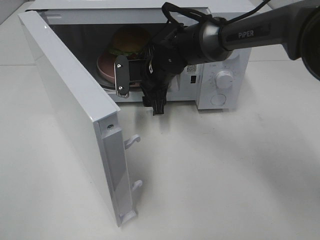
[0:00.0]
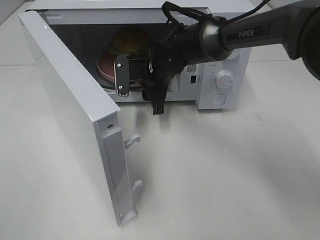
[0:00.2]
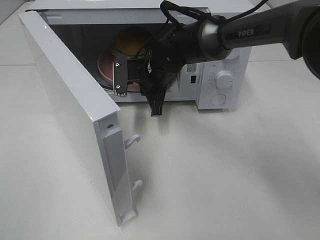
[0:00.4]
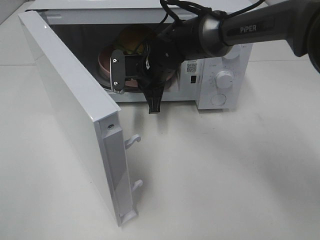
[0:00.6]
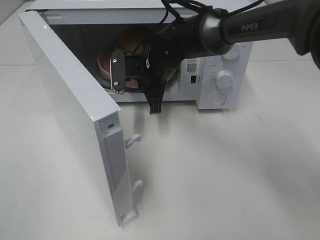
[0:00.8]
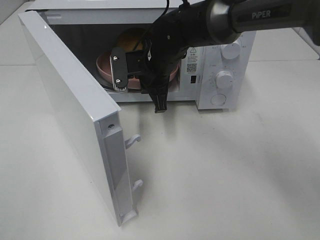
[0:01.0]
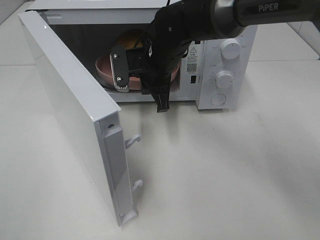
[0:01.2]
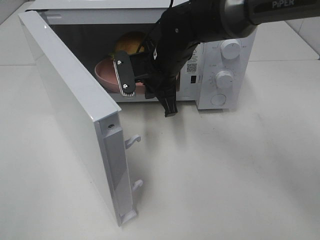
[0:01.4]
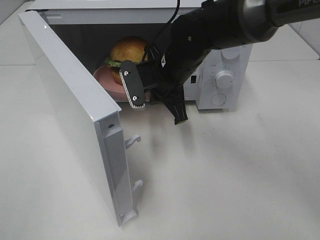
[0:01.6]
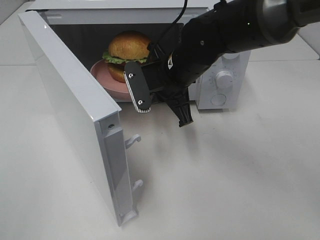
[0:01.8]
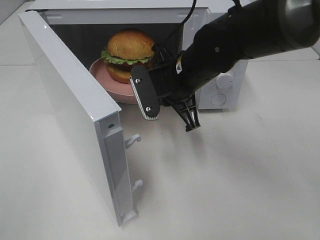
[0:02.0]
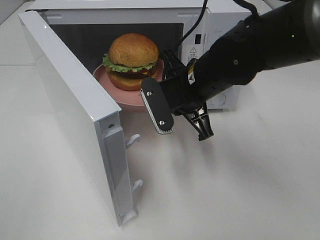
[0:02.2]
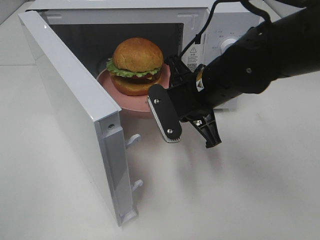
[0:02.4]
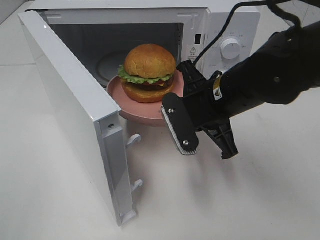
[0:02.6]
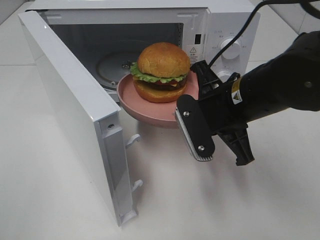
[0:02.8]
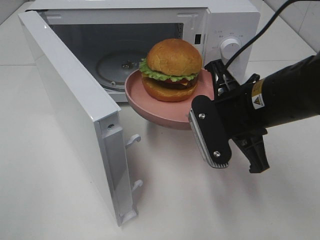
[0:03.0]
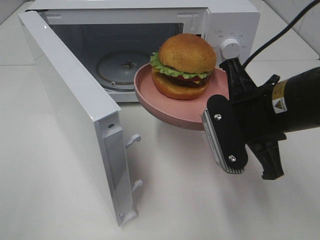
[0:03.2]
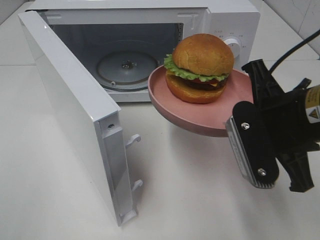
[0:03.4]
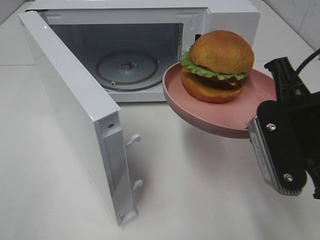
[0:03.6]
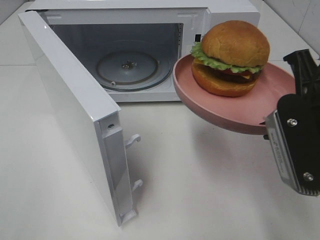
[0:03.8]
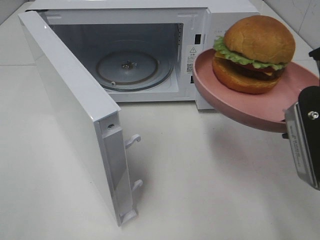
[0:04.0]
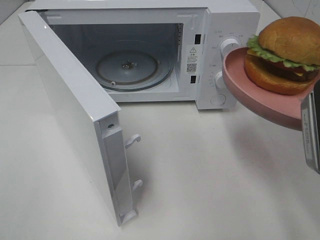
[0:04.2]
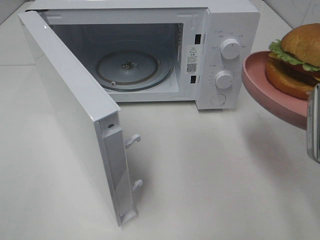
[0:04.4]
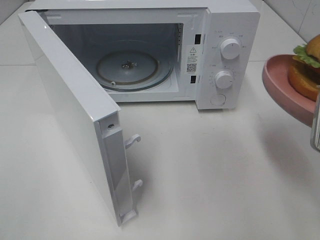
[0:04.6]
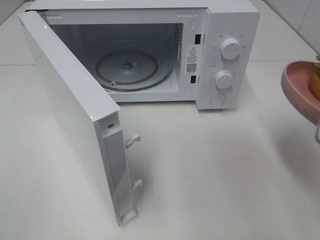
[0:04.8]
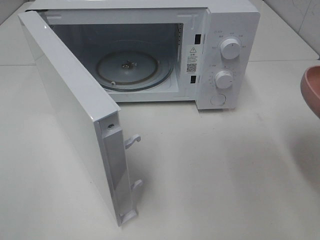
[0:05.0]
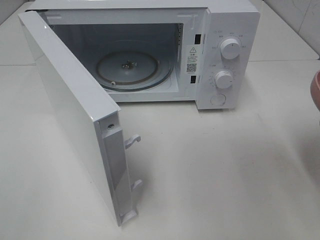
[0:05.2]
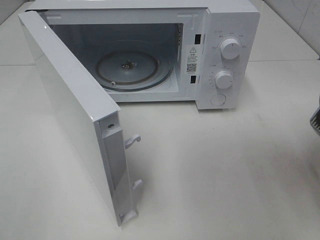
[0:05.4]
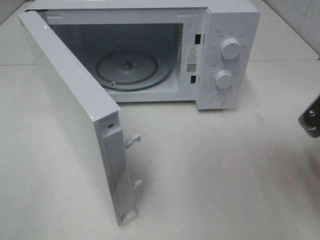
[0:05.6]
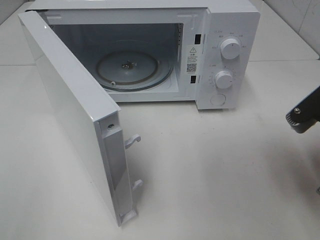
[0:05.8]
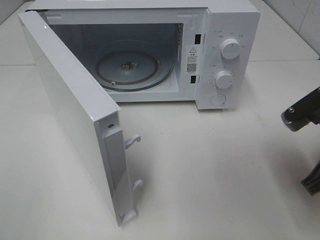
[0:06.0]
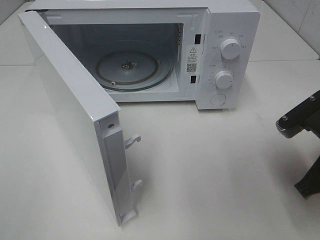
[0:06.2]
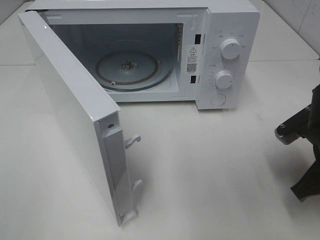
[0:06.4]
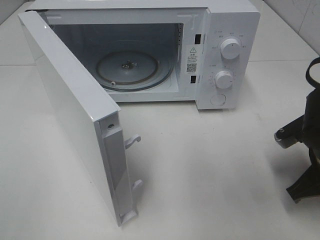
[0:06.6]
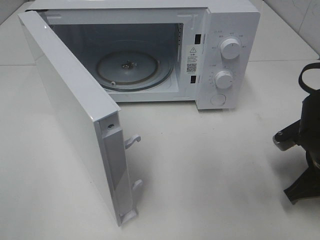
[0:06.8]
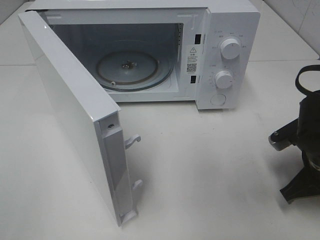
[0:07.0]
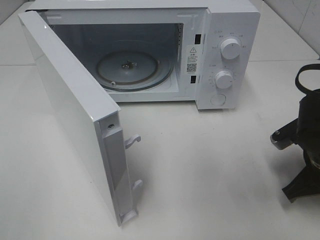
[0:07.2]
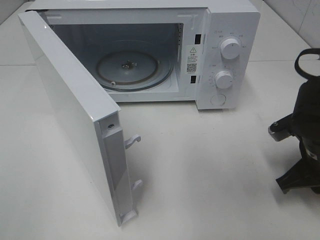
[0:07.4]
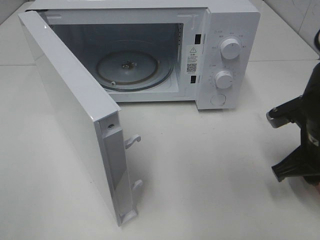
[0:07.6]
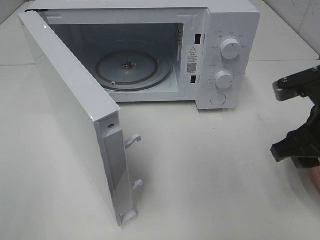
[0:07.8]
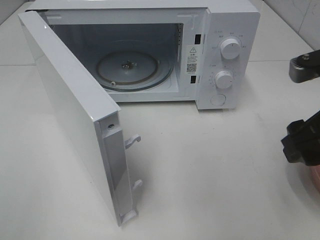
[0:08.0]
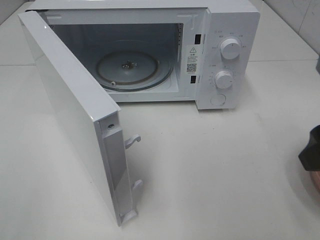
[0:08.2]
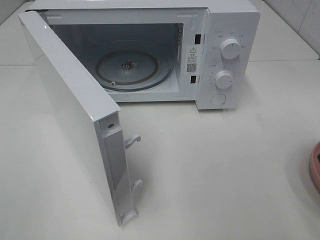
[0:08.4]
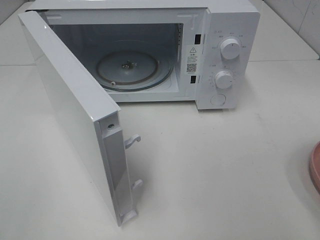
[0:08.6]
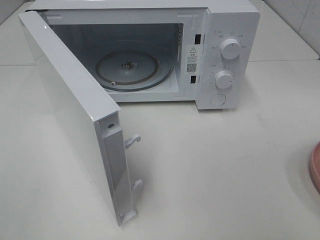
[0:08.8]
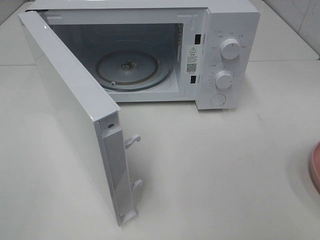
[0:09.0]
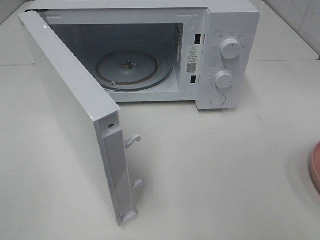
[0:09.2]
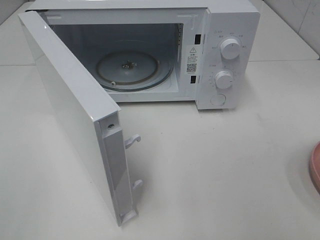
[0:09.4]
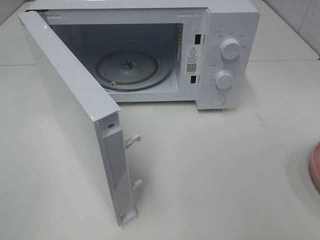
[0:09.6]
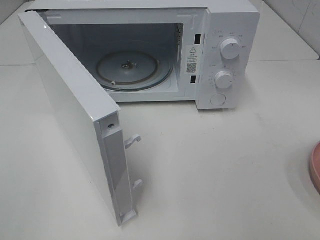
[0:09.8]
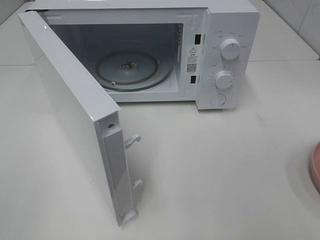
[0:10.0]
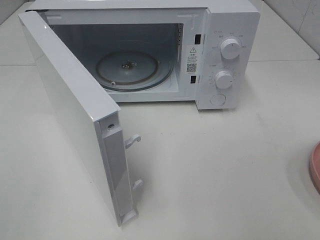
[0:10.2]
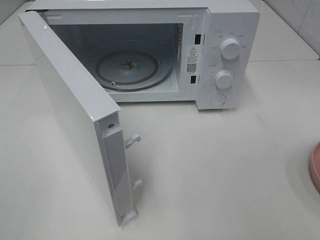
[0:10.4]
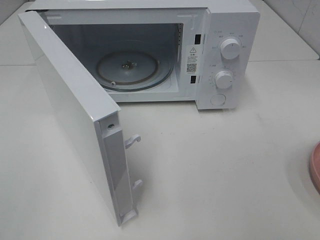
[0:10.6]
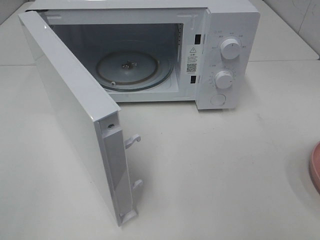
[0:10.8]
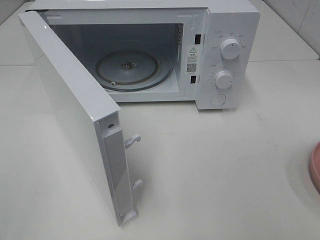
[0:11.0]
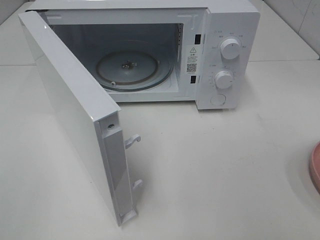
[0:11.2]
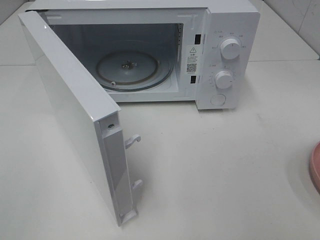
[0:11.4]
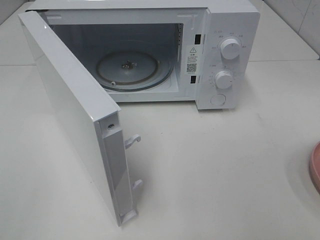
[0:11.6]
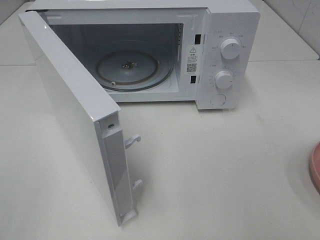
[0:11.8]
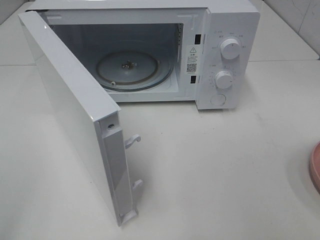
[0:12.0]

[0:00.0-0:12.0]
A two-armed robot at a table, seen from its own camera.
Task of the whole recording: Heat the burger.
Step, 0:00.6 to 0:07.2: Right hand: place the plate on the table.
0:00.0 to 0:01.6: The right gripper moves backward, some 5 cm, and closes.
0:01.6 to 0:03.0: The right gripper goes some 15 cm backward and to the right.
0:03.0 to 0:04.4: The right gripper is displaced to the right, backward and upward by approximately 15 cm.
0:04.4 to 0:06.0: The right gripper travels downward by roughly 5 cm.
0:06.0 to 0:07.6: The right gripper moves roughly 5 cm, and opens.
0:07.6 to 0:09.0: The right gripper travels backward and upward by approximately 20 cm.

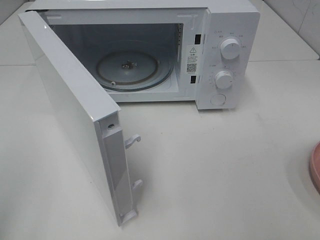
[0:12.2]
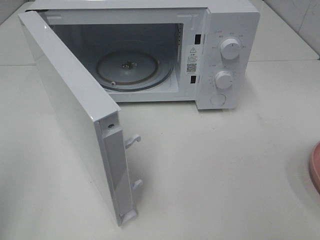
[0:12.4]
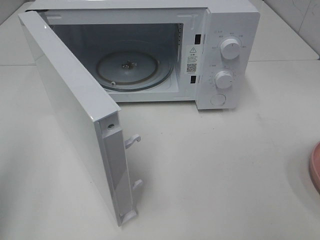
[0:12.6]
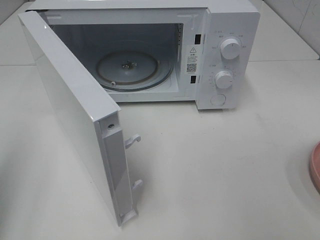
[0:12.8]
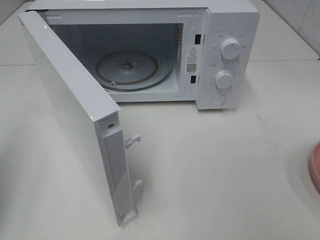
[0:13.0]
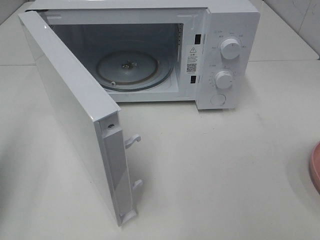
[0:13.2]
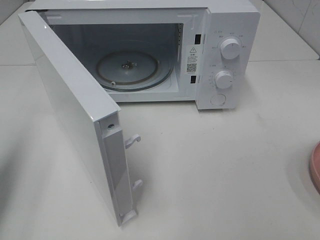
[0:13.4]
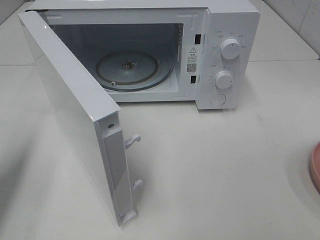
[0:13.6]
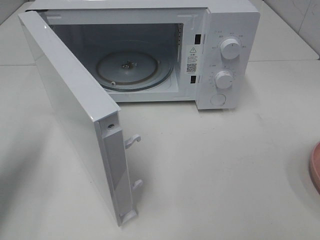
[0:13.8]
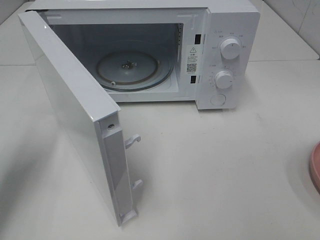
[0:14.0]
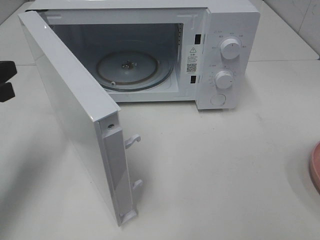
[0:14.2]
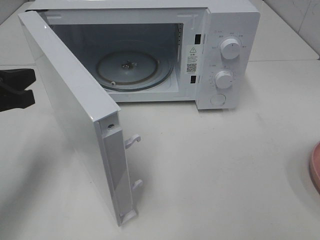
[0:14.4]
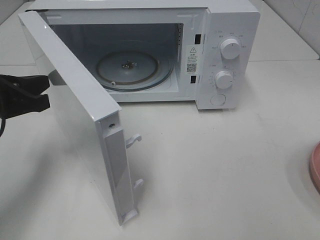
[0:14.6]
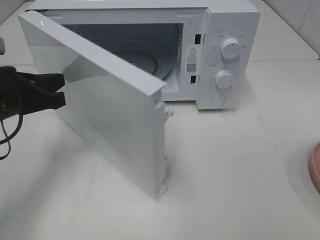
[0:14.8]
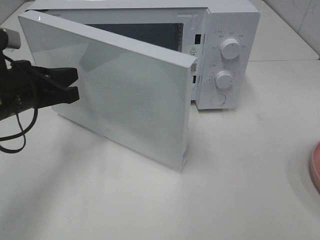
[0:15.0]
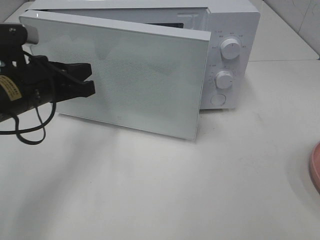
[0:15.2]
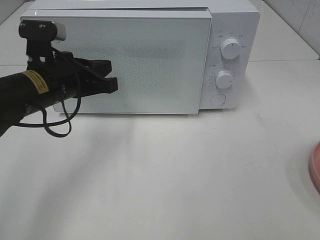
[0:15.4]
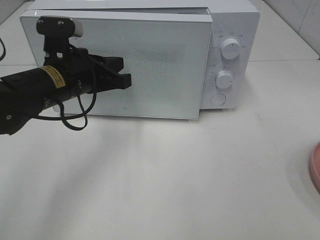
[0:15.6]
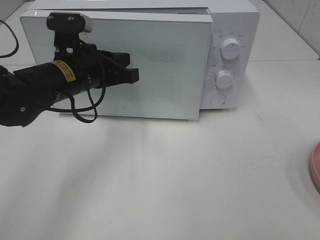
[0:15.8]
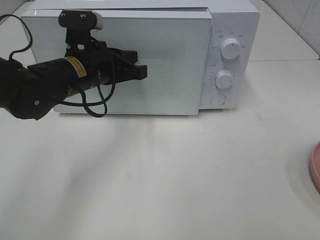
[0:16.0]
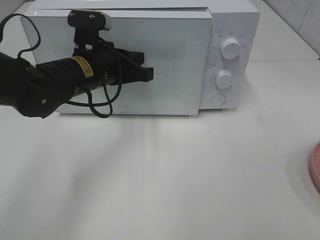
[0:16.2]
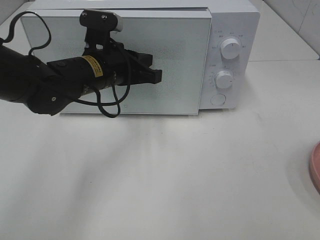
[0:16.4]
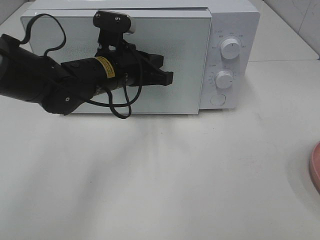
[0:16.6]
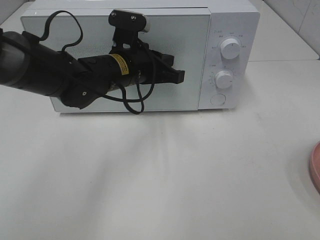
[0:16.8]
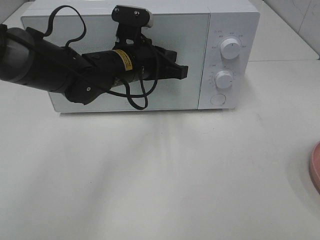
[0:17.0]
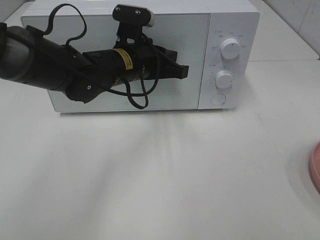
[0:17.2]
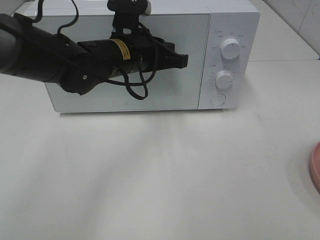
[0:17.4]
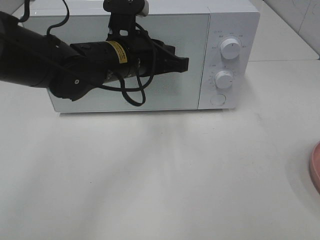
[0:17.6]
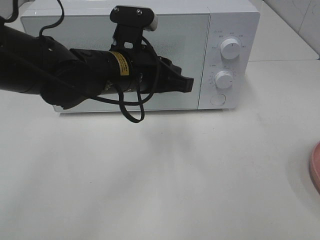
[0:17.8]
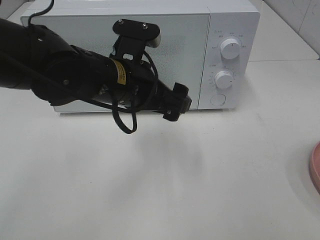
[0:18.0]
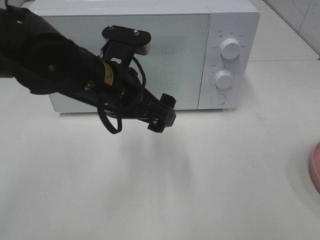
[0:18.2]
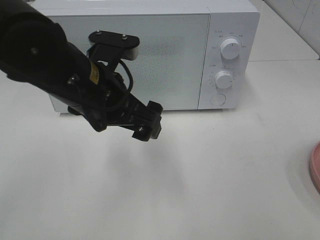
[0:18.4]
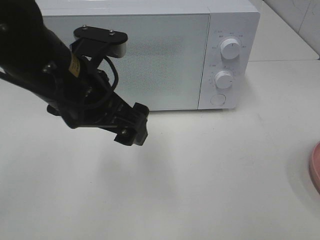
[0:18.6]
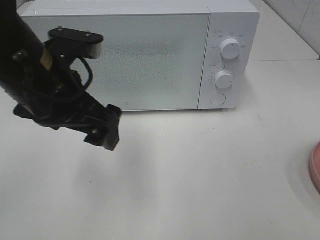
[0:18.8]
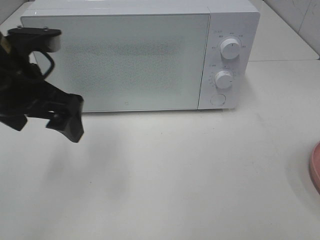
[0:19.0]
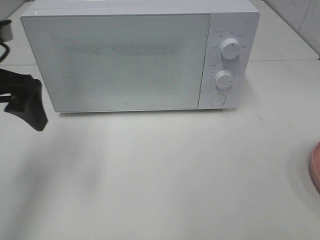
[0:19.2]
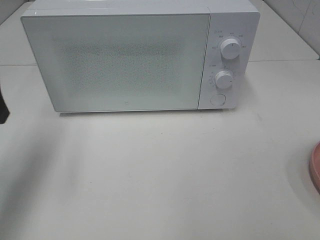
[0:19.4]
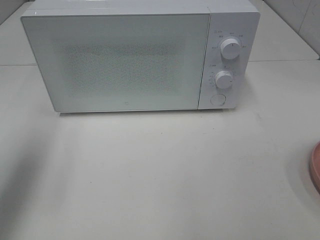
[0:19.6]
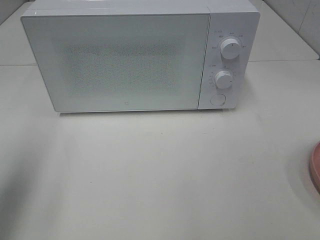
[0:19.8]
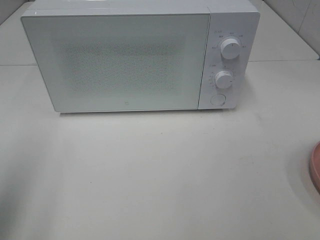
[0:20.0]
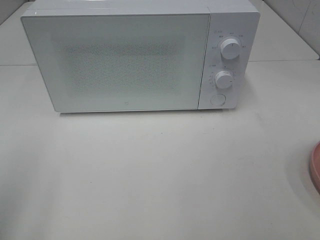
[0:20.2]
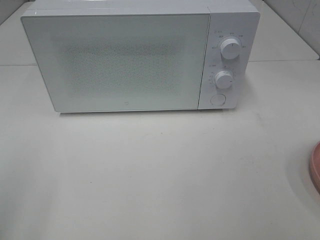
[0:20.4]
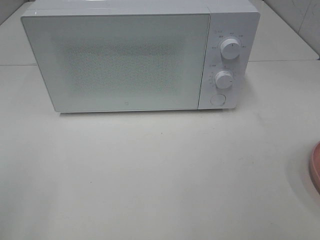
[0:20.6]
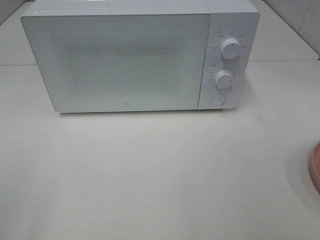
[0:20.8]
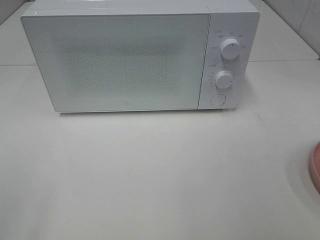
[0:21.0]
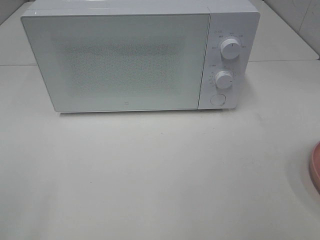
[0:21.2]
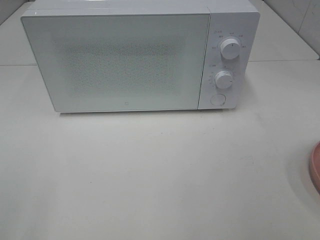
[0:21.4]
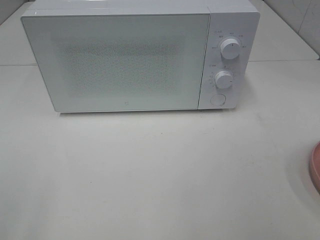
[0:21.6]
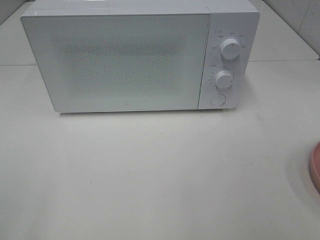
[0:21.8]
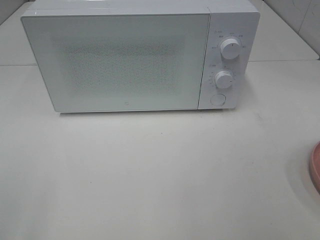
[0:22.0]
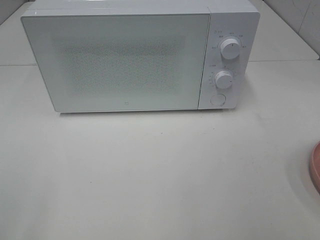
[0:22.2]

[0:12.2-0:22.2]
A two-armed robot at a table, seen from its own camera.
Task of the whole recording: Heat the burger.
Step, 0:12.2 to 0:17.4: Left hand: close the microwave door.
0:12.2 to 0:13.6: The left gripper heads forward and downward, covering approximately 15 cm.
0:13.6 to 0:15.0: The left gripper moves to the right and forward, some 15 cm.
0:15.0 to 0:16.4: The left gripper shifts some 15 cm to the right and forward.
0:16.4 to 0:18.0: The left gripper heads backward, covering about 5 cm, and opens up.
0:18.0 to 0:19.4: The left gripper shifts some 25 cm to the left.
0:19.4 to 0:20.8: The left gripper moves backward, approximately 25 cm.
